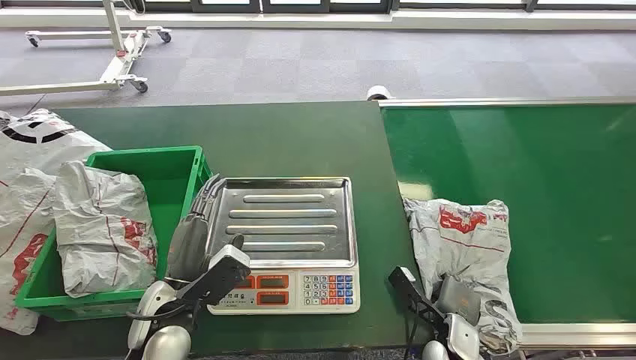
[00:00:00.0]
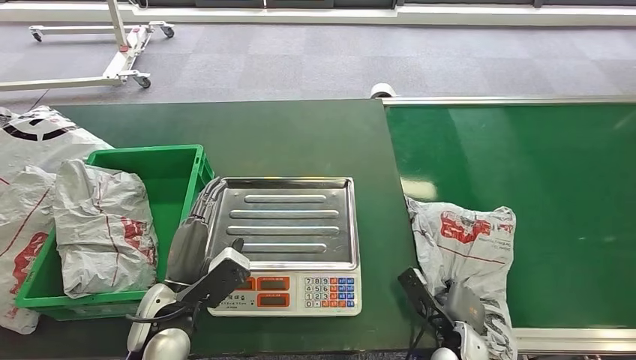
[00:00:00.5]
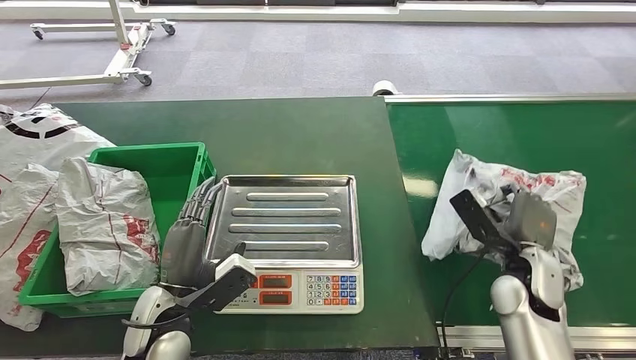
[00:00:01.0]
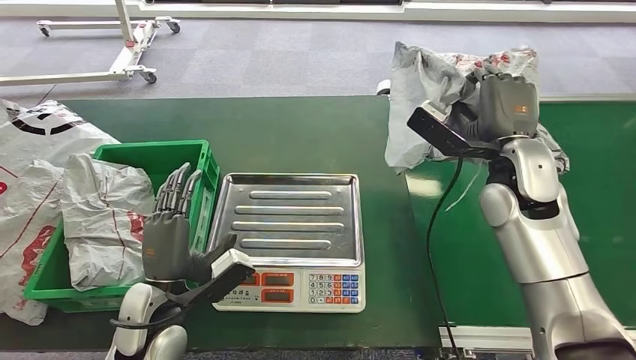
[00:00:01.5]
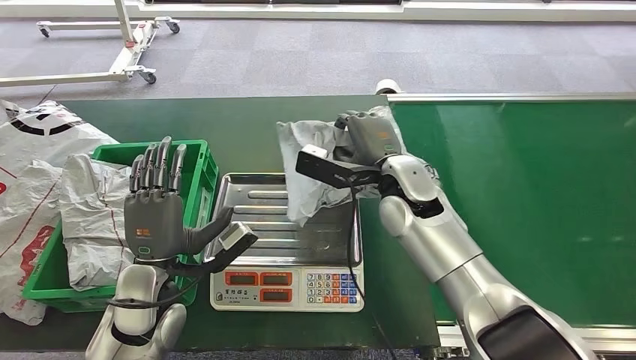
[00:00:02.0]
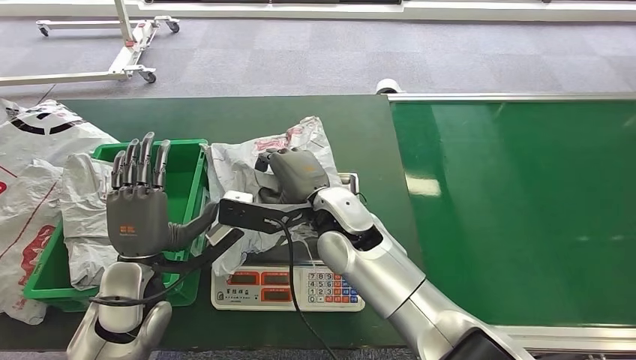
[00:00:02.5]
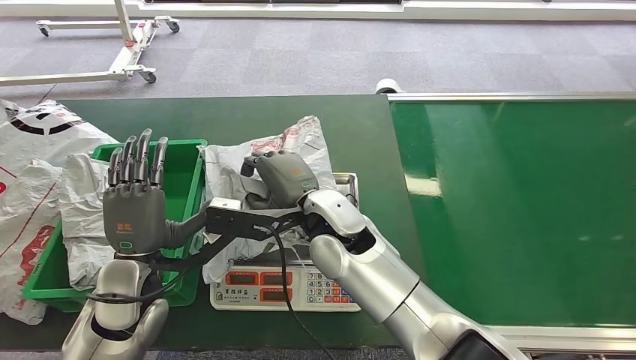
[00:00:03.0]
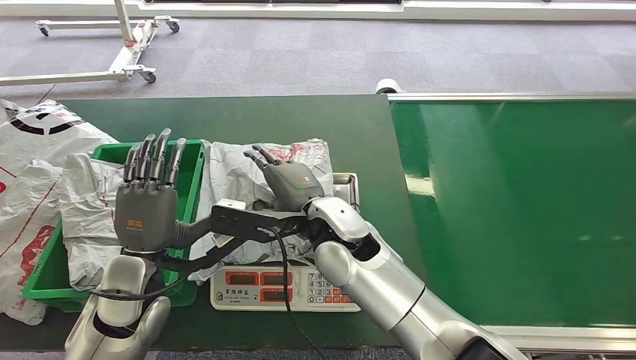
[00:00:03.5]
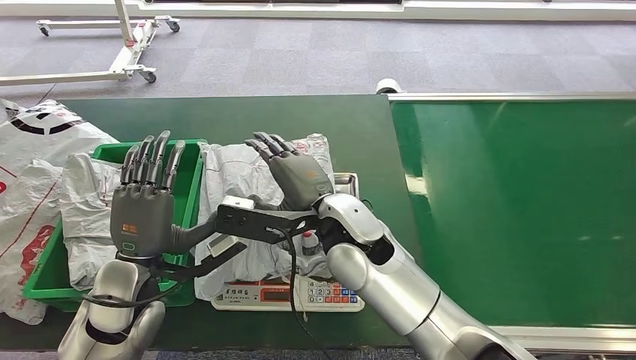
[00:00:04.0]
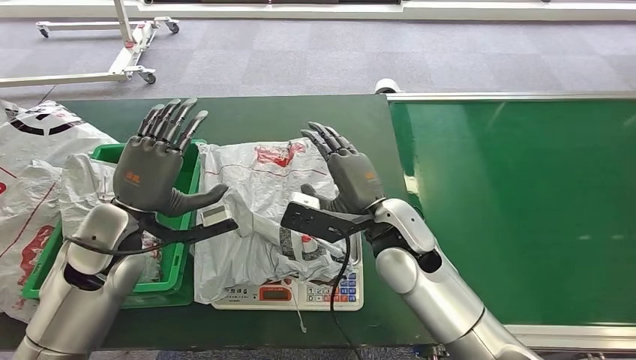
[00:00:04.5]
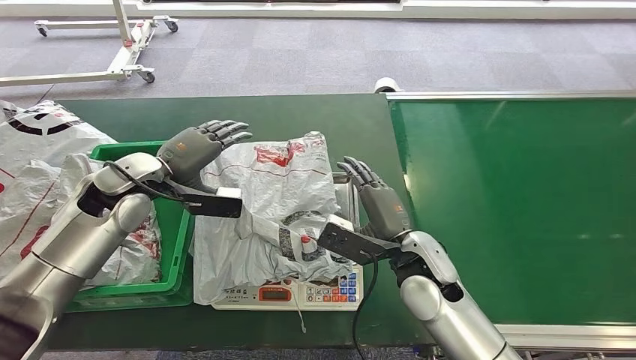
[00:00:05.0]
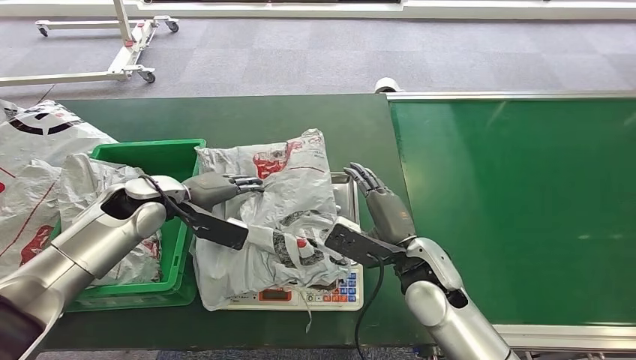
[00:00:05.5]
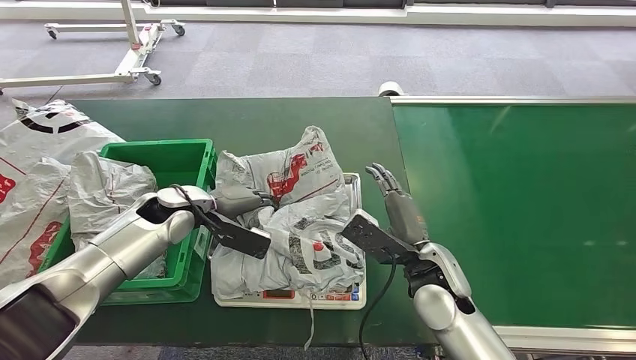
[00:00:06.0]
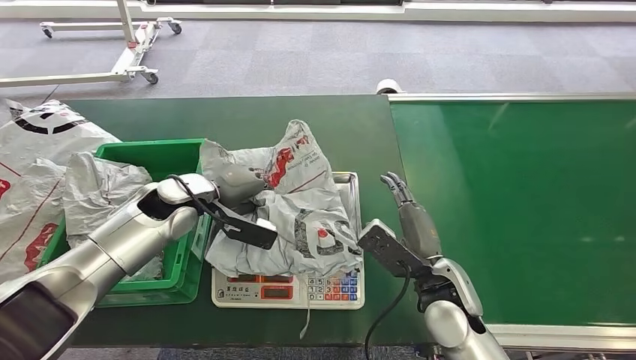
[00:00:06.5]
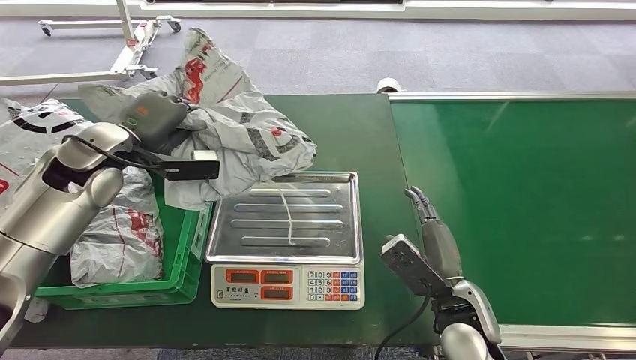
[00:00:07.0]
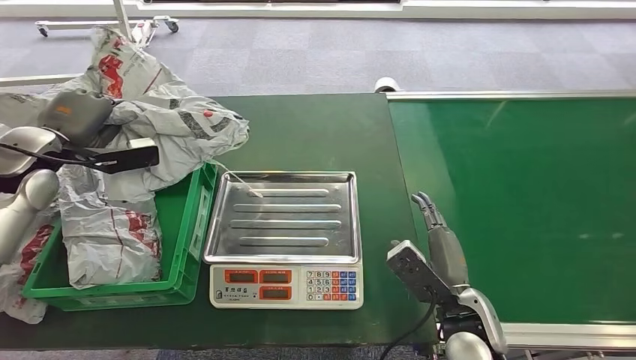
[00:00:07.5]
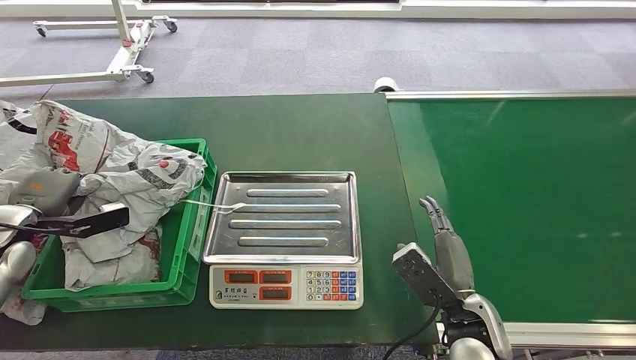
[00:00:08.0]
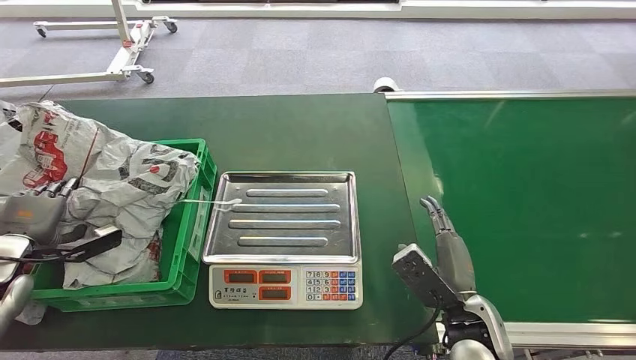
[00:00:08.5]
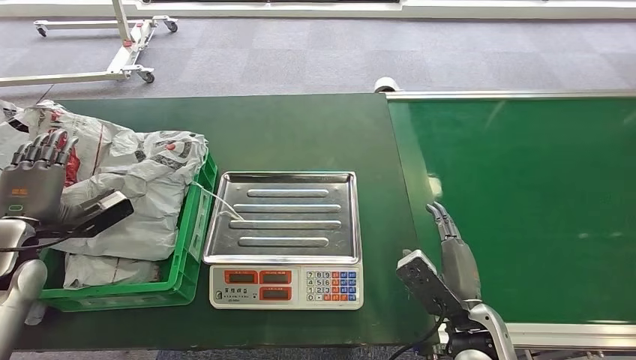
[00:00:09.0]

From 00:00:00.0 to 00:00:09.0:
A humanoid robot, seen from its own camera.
Step, from 00:00:00.0 to 00:00:01.0: Pick up the package from the conveyor belt.
Step, from 00:00:01.5 to 00:00:04.0: Place the package onto the inbound machine.
Step, from 00:00:04.5 to 00:00:06.5: Pick up the package from the inbound machine.
Step, from 00:00:07.0 to 00:00:09.0: Place the package into the parcel locker.

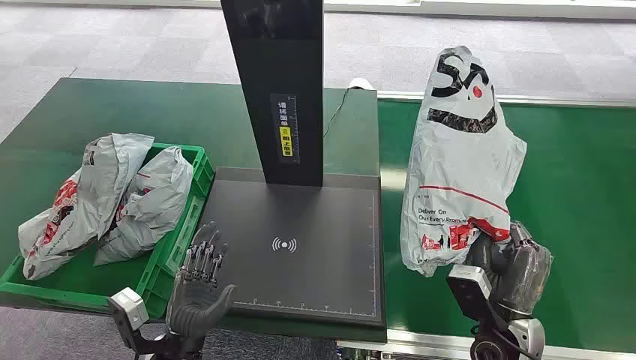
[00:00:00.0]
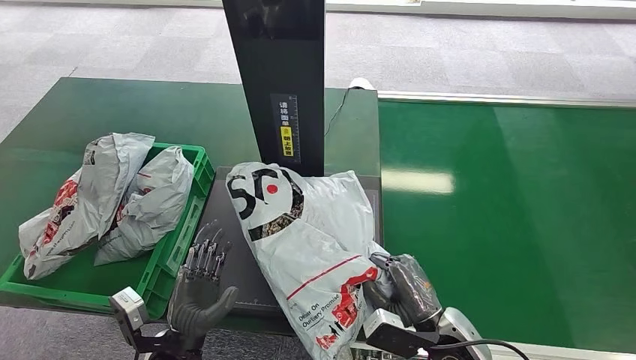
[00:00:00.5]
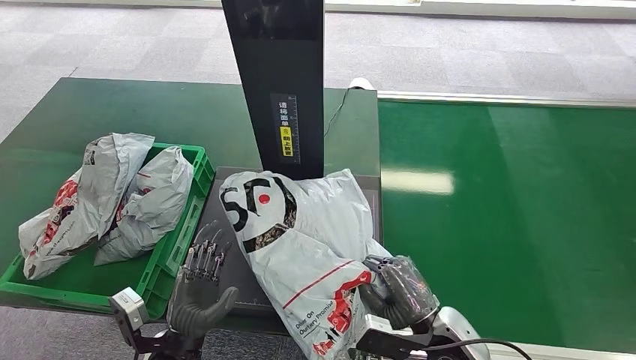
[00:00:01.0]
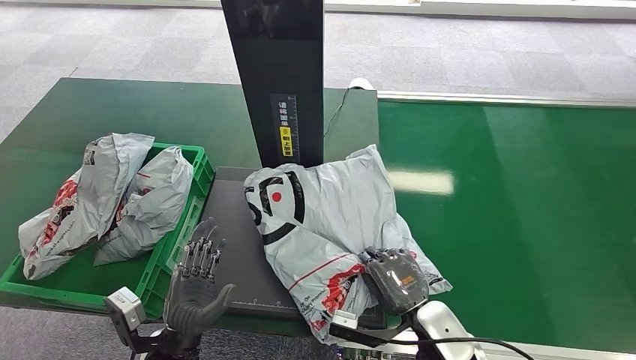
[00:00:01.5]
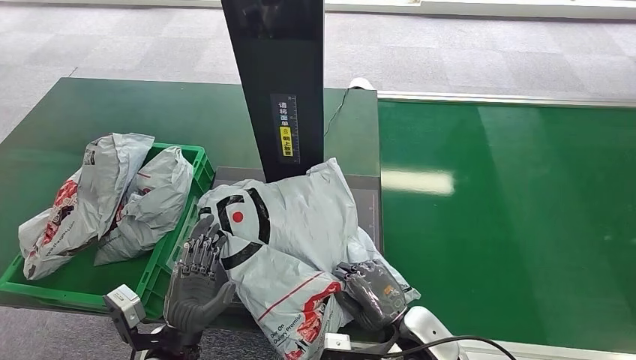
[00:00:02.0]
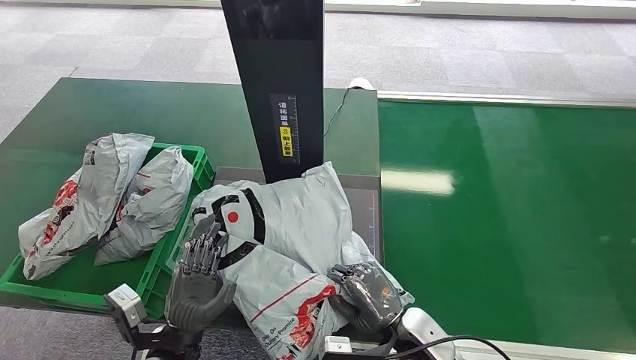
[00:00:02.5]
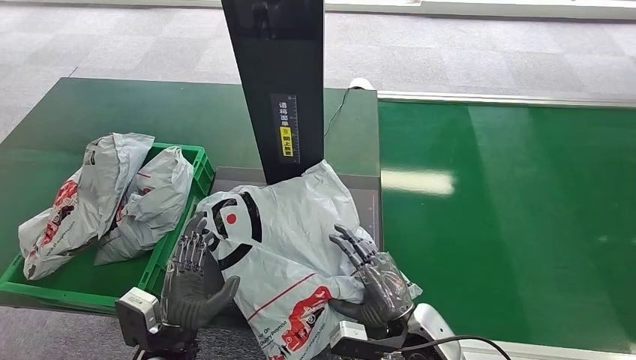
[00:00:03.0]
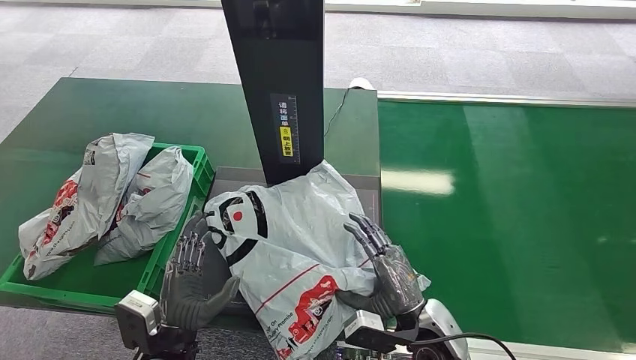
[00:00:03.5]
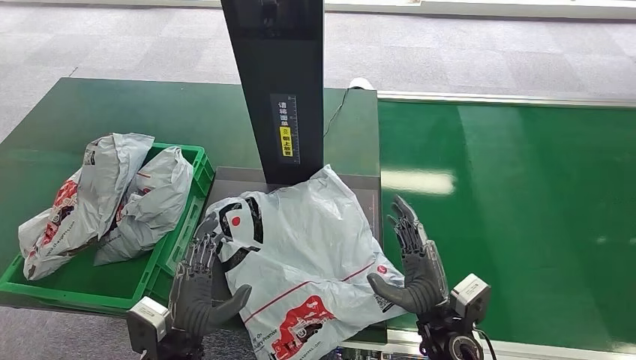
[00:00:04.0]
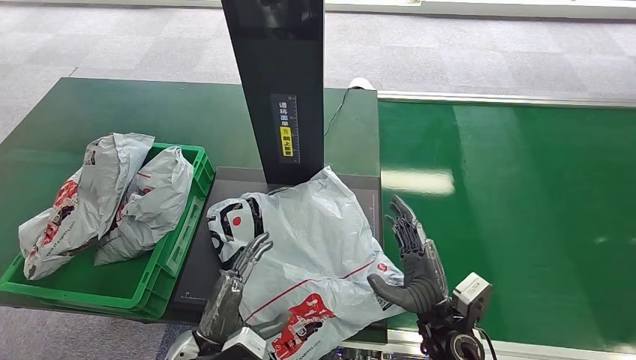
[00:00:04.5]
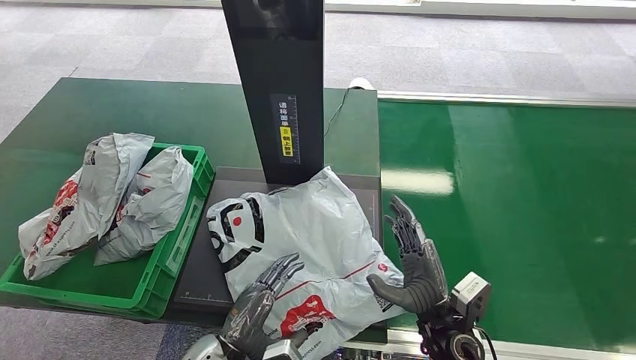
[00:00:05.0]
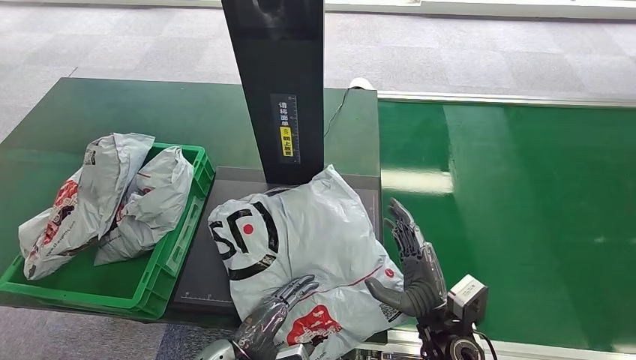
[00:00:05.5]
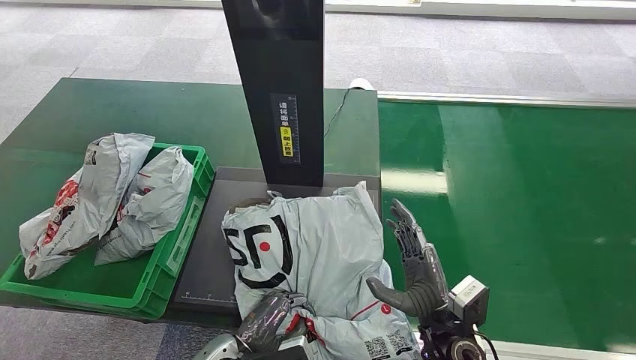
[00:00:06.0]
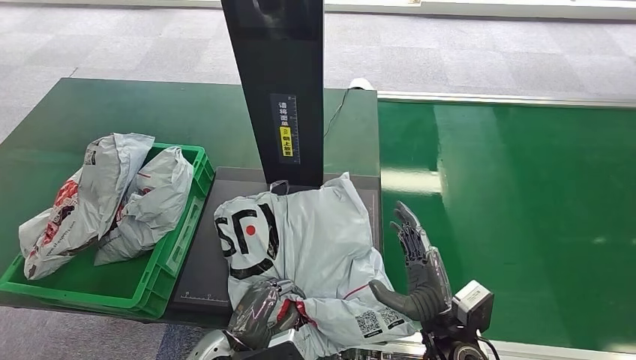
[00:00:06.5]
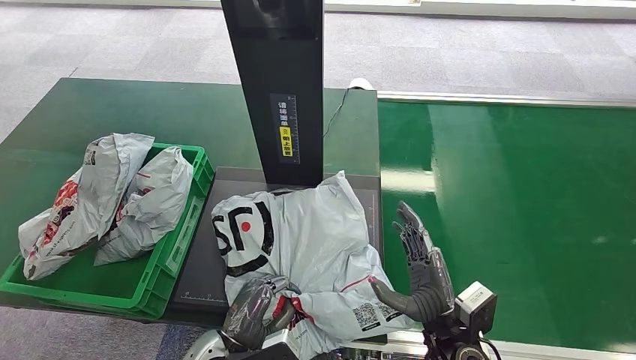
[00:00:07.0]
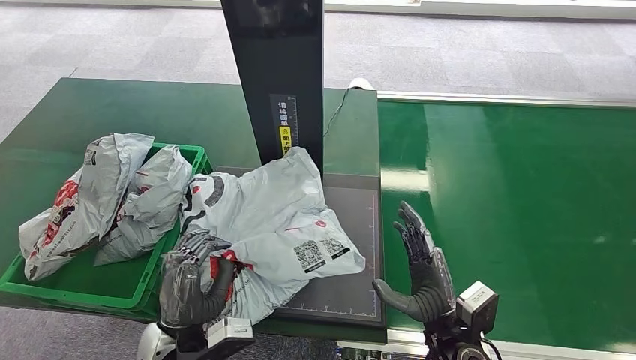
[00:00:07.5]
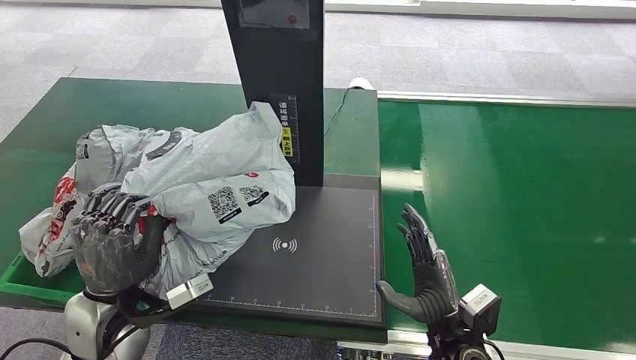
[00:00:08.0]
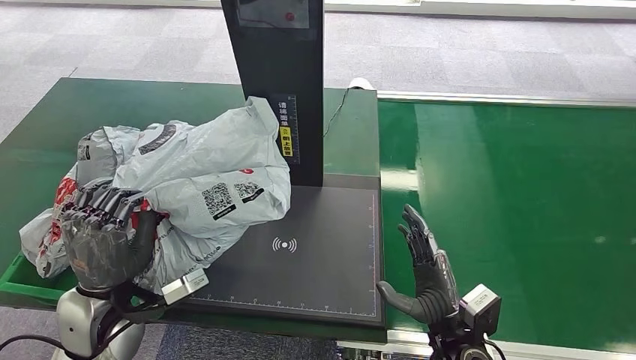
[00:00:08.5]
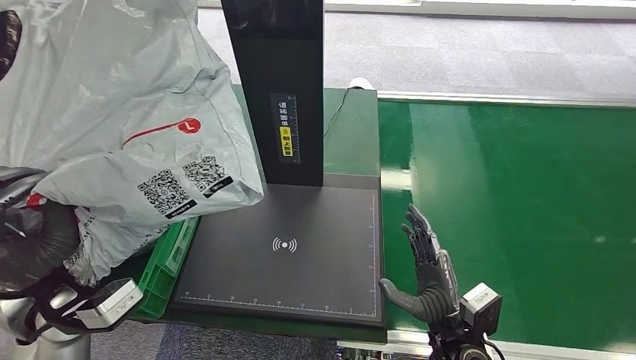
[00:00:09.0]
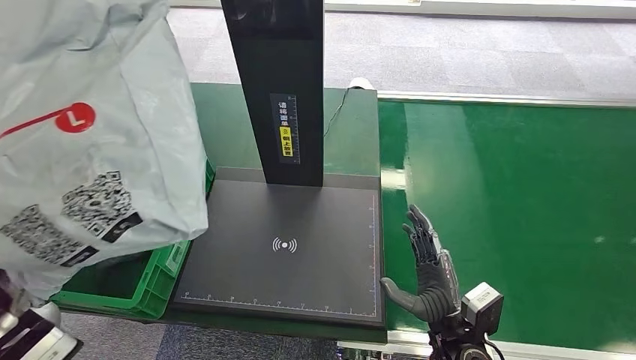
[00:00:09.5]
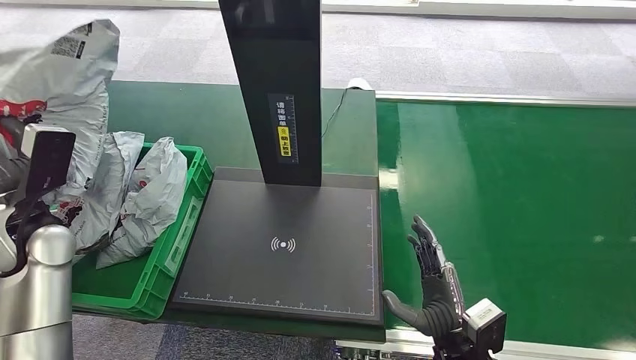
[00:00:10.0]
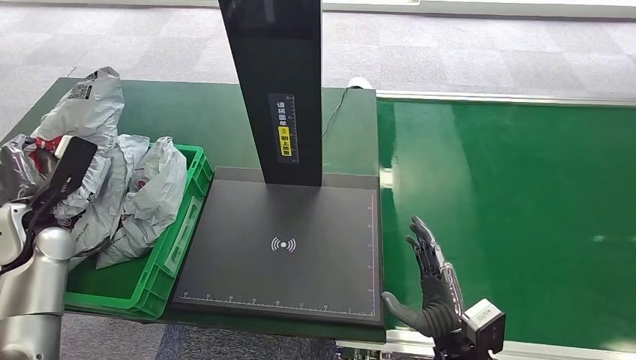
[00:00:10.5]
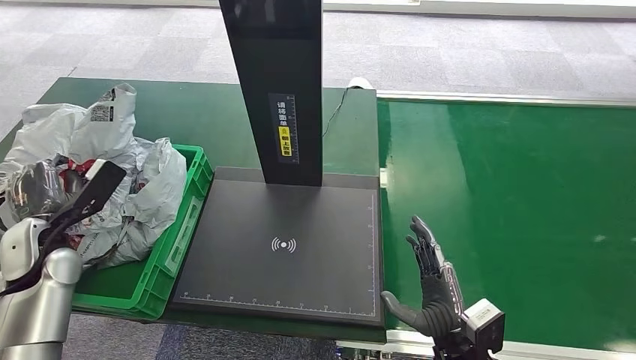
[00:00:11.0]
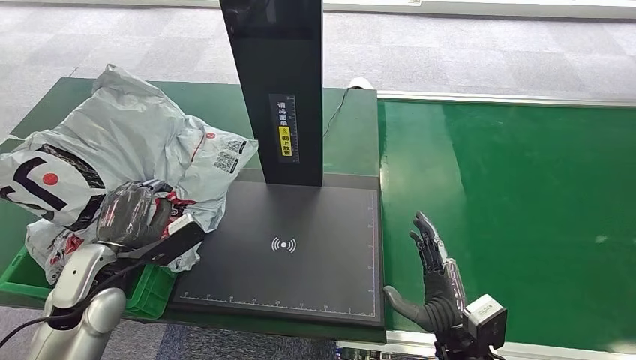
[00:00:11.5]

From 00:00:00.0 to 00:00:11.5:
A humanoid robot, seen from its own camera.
From 00:00:04.0 to 00:00:06.0: The left hand moves to the right, roughly 5 cm.
From 00:00:06.0 to 00:00:07.5: The left hand heads upward, covering roughly 5 cm.
